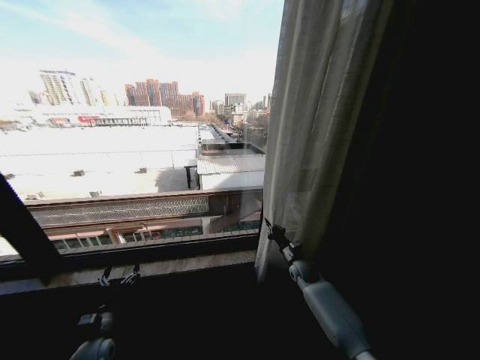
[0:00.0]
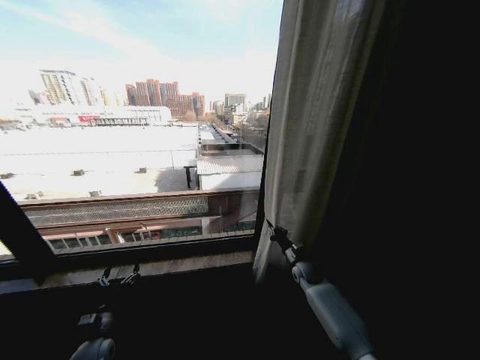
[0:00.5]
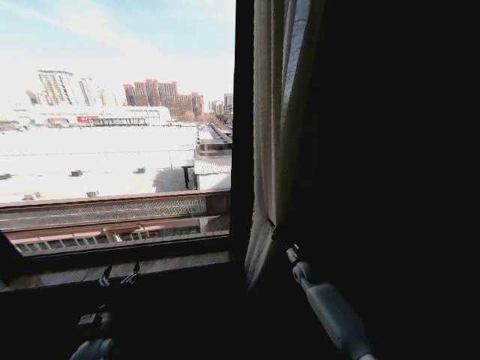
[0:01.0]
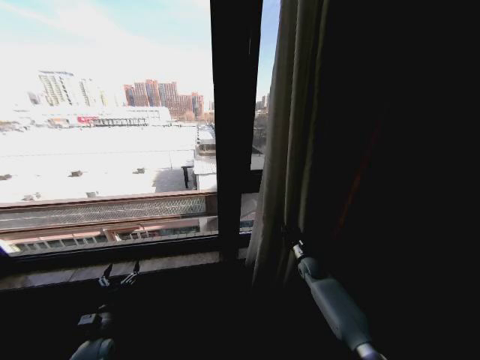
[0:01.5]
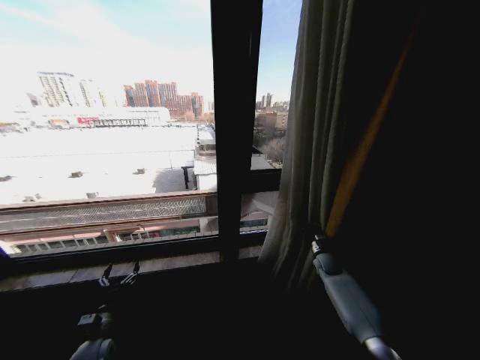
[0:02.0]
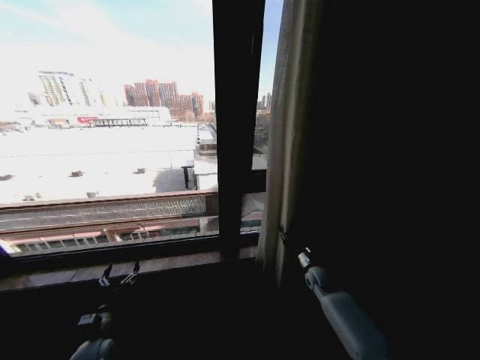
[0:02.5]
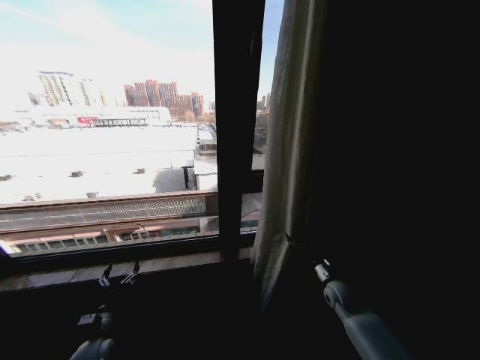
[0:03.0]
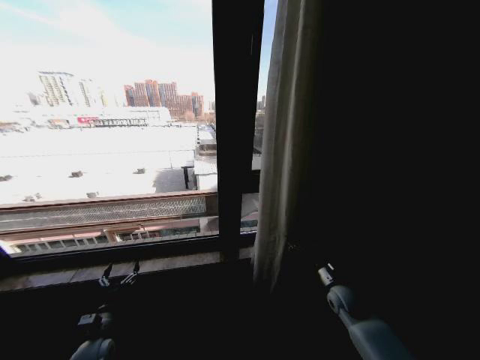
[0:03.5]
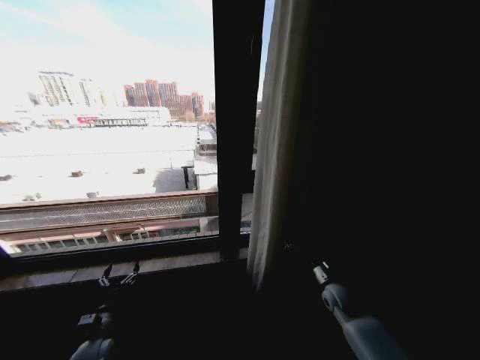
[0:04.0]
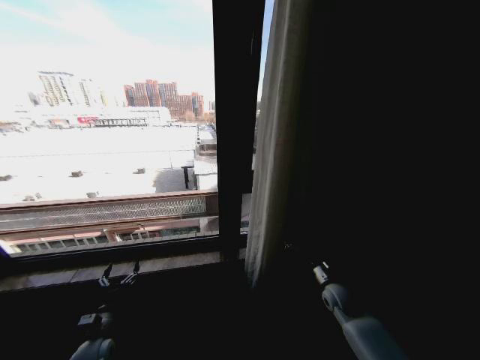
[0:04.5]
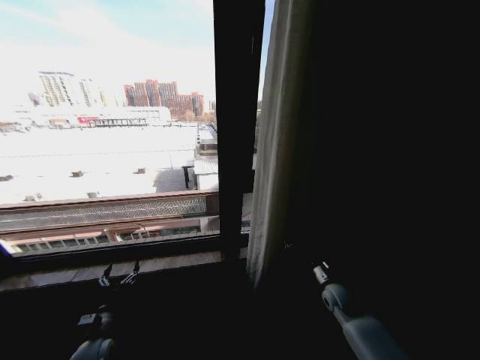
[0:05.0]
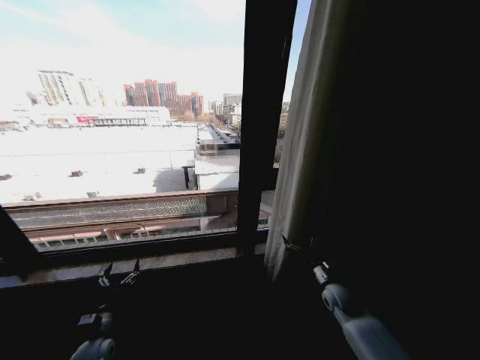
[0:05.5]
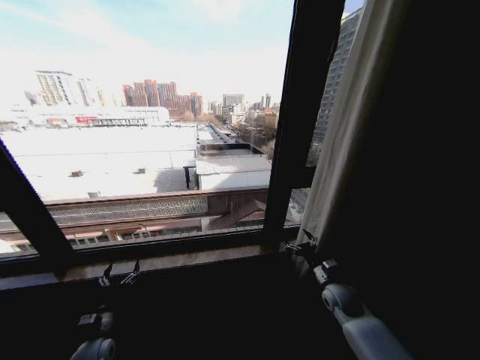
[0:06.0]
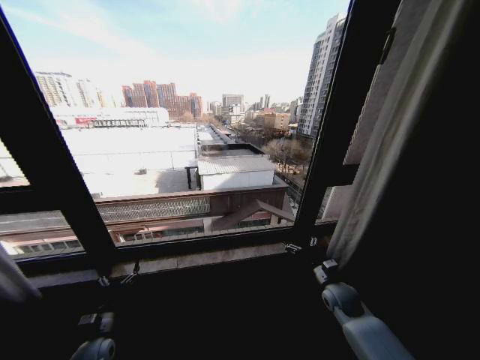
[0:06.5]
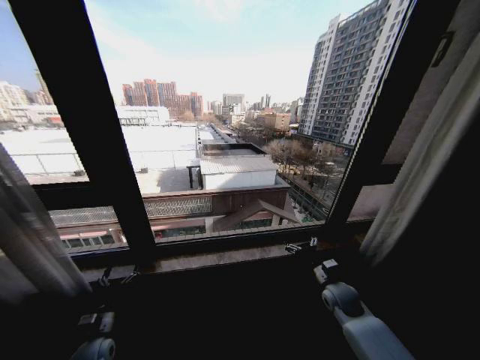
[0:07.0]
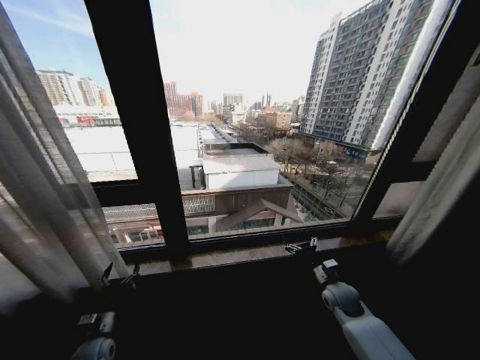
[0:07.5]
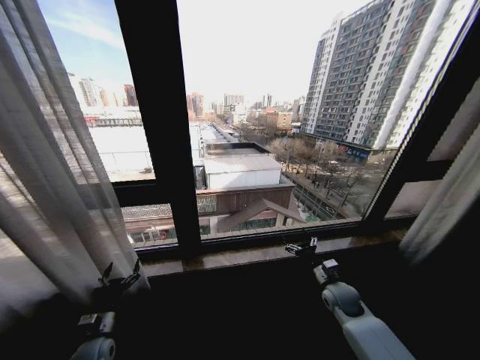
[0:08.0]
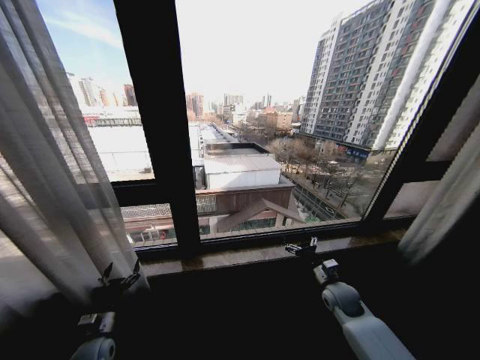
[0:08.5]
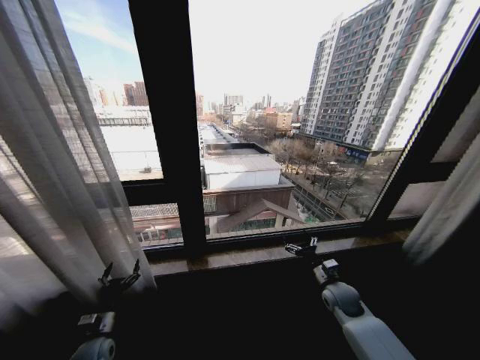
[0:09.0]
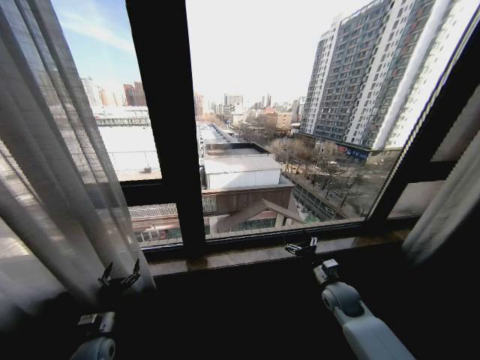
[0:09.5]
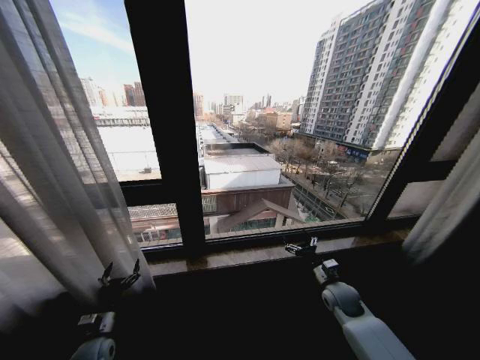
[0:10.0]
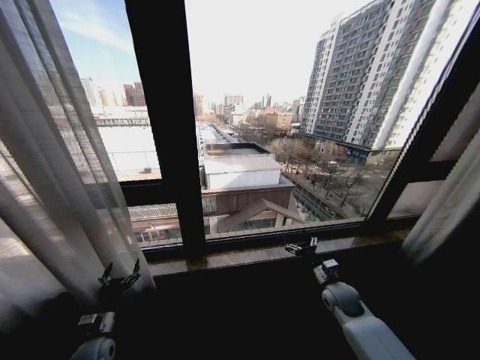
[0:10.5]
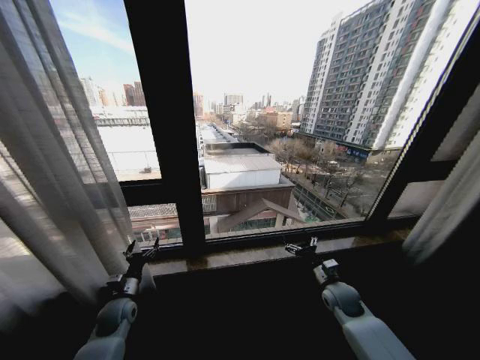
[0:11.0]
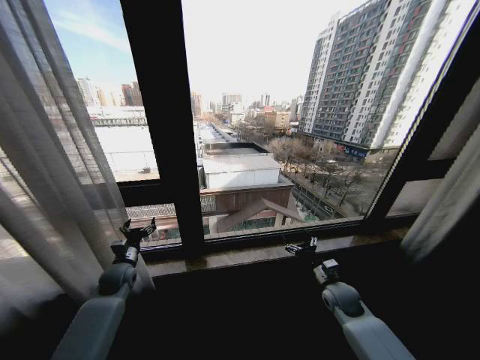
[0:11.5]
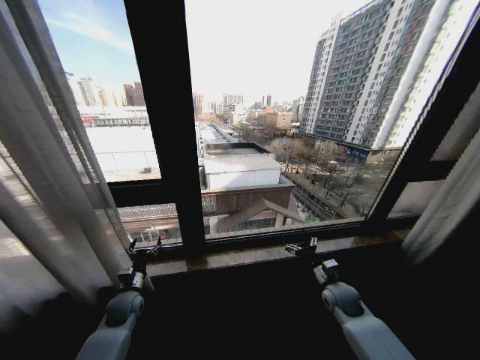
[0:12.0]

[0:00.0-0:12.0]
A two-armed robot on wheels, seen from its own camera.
Task of the whole recording: Open the curtains by pulling them apart, changing their state from closed to fully open.
0:00.0 to 0:02.0: The right gripper travels to the right by roughly 10 cm.
0:02.0 to 0:04.0: The right gripper is displaced backward by some 15 cm, and opens its fingers.
0:08.0 to 0:10.0: The two grippers keep their place.
0:10.0 to 0:12.0: The left gripper moves forward, to the right and upward, approximately 15 cm.

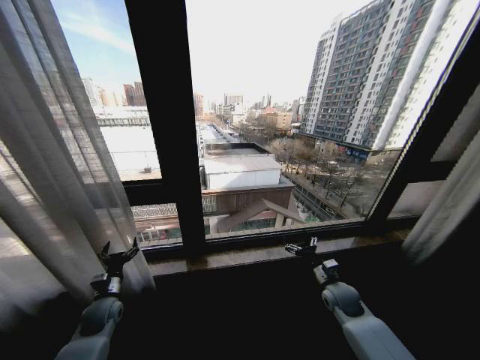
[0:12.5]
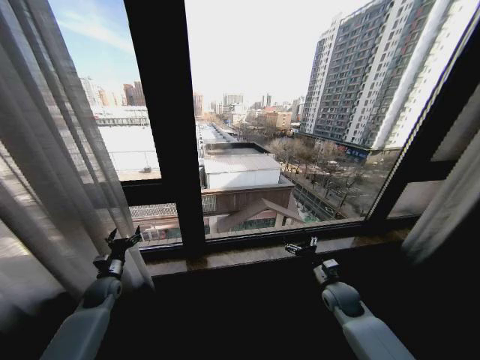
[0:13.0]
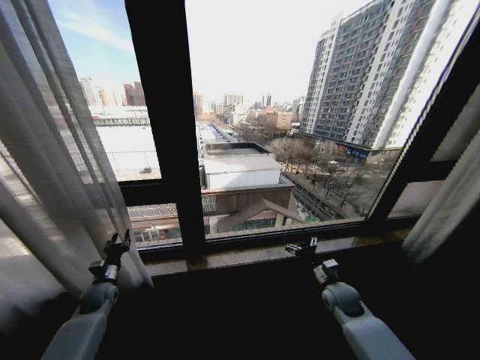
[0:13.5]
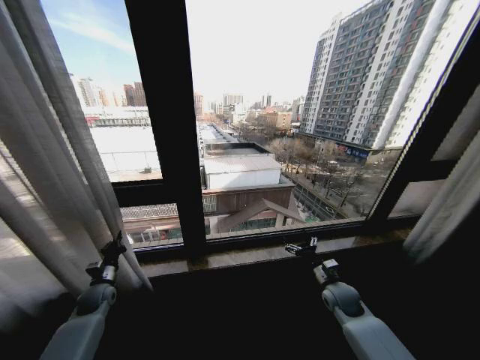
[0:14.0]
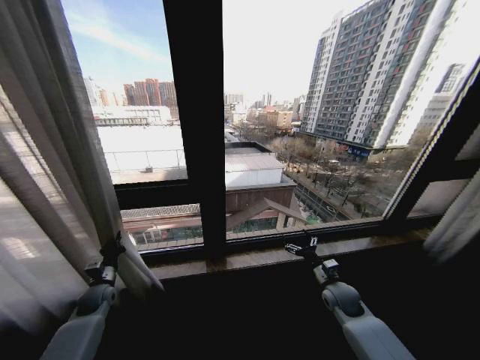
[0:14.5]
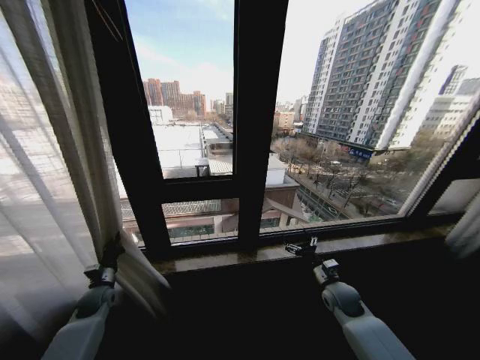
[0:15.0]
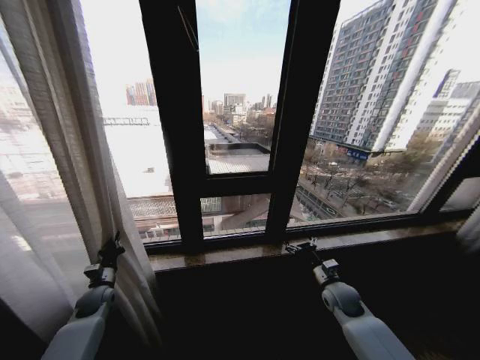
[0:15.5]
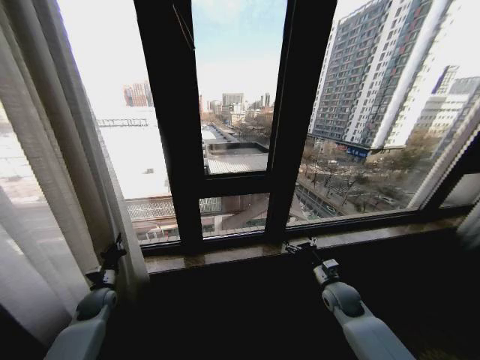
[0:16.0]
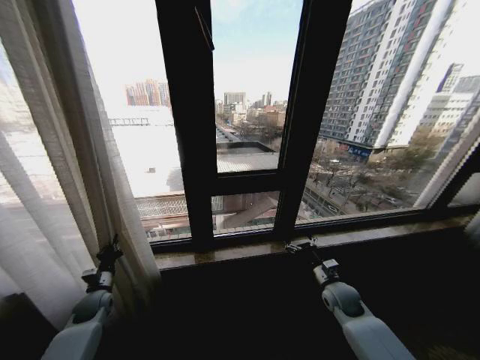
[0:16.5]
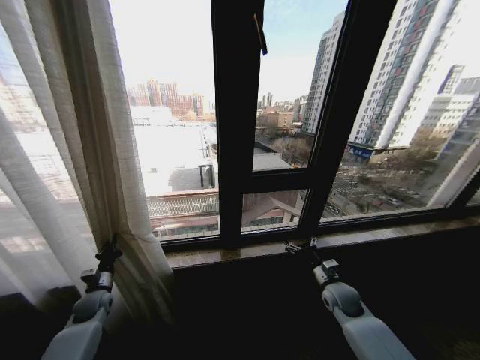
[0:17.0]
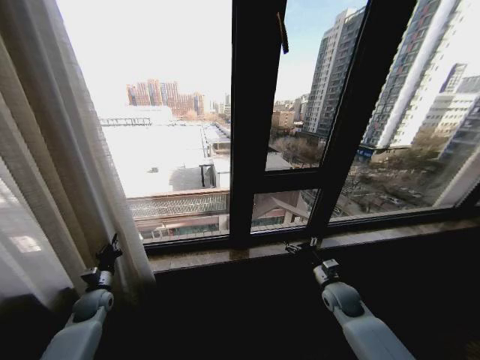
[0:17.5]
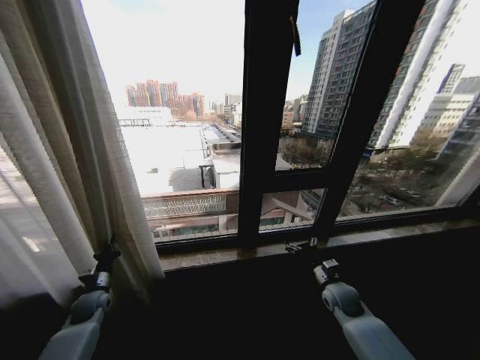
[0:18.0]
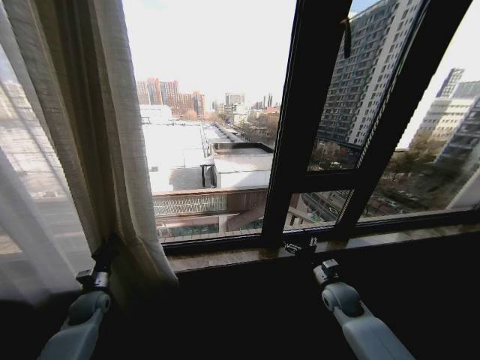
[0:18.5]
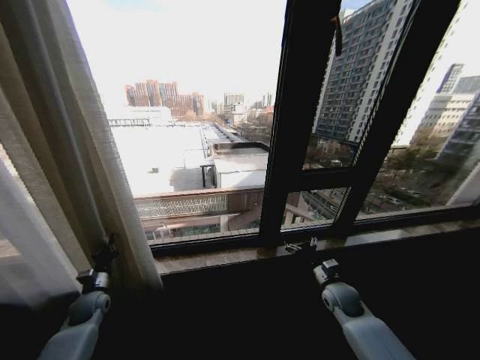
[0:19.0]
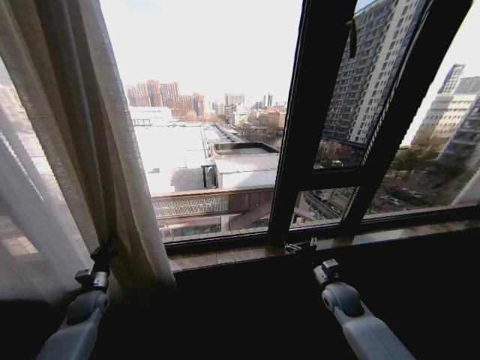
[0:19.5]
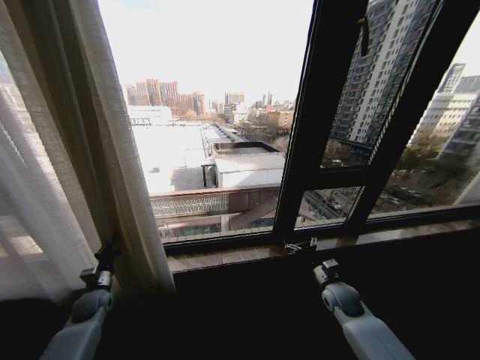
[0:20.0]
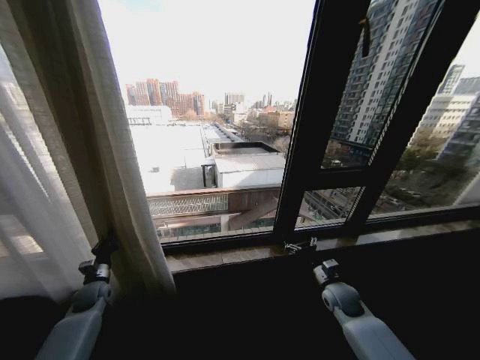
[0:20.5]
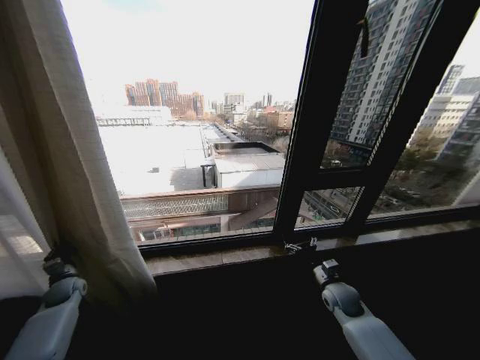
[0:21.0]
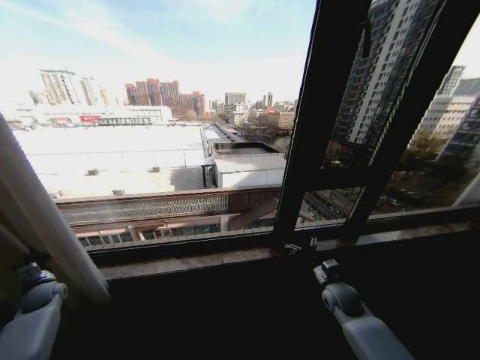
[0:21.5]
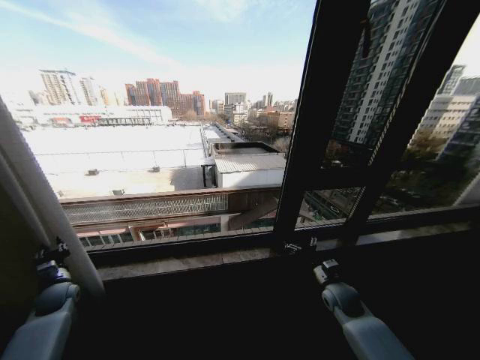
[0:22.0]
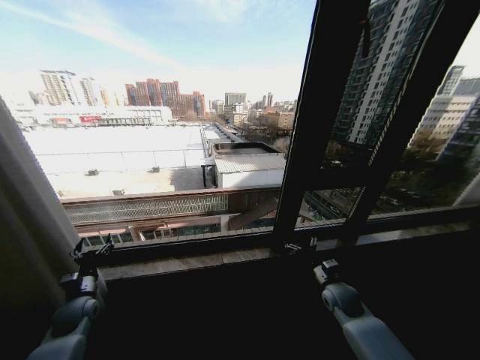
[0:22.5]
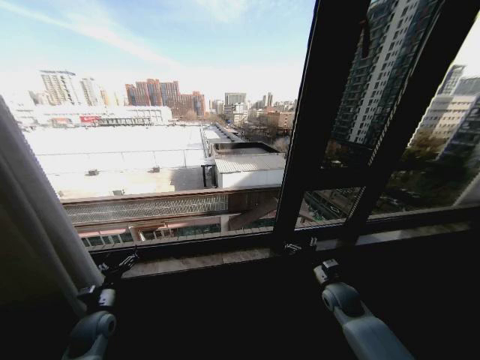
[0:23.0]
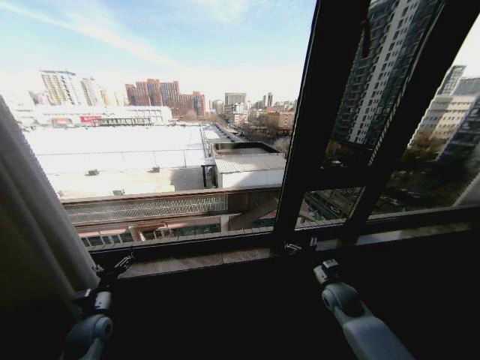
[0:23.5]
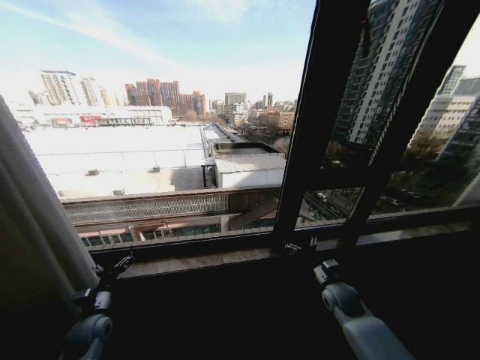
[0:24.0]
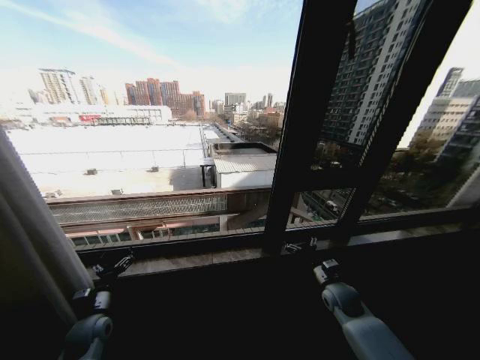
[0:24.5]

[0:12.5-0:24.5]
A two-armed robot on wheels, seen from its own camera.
Task of the whole recording: Open the curtains by pulling them apart, changing their state from closed to fully open.
0:12.5 to 0:14.5: The left gripper goes about 5 cm to the left, and closes its fingers.
0:20.5 to 0:22.5: The left gripper travels backward by roughly 5 cm, goes to the left and returns, roughly 15 cm each way, and opens.
0:22.5 to 0:24.5: The left gripper is displaced to the right by about 5 cm.
